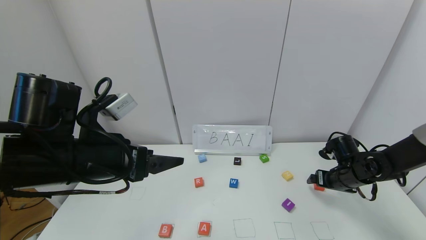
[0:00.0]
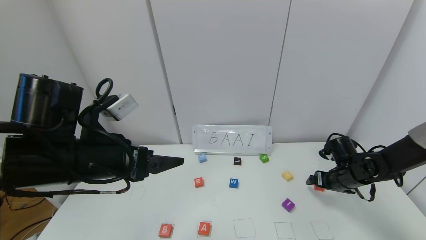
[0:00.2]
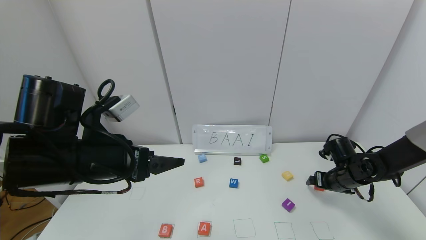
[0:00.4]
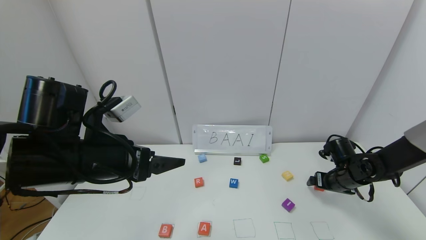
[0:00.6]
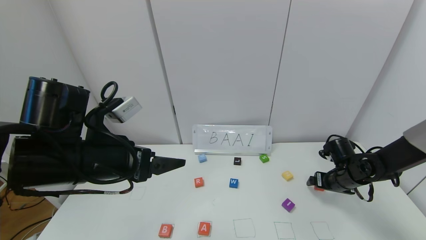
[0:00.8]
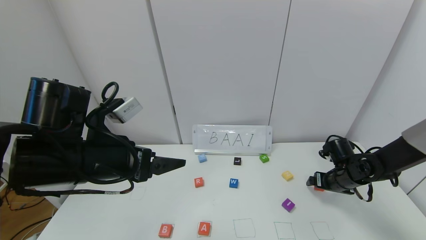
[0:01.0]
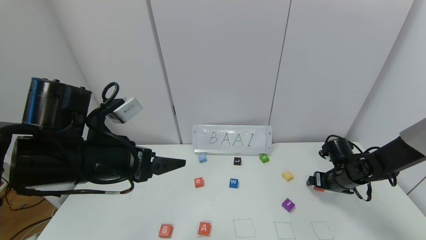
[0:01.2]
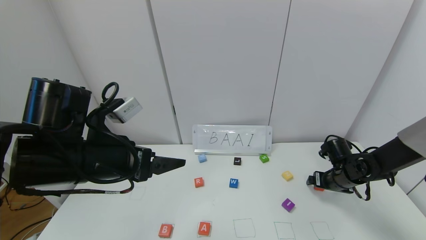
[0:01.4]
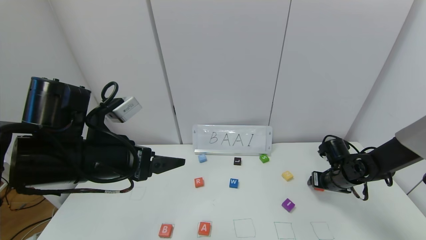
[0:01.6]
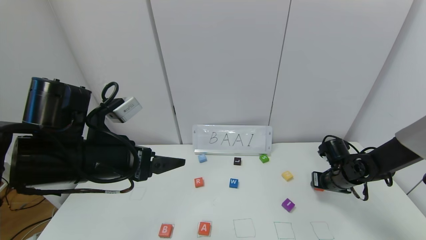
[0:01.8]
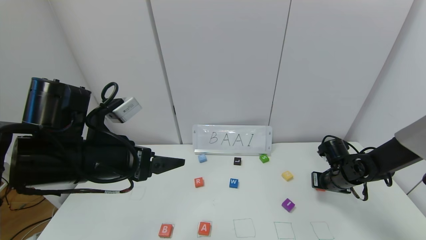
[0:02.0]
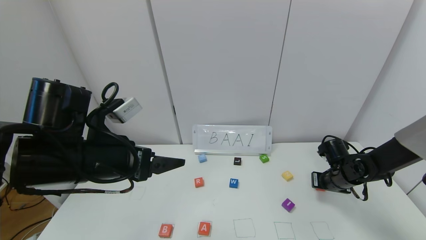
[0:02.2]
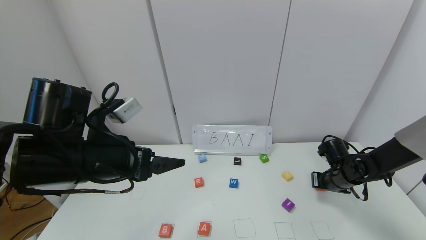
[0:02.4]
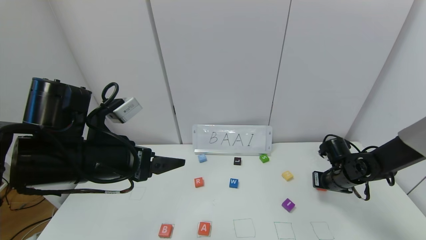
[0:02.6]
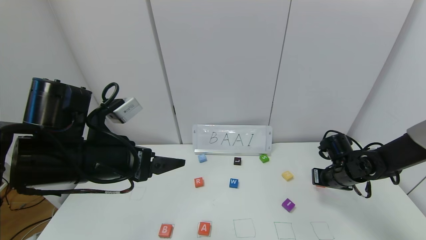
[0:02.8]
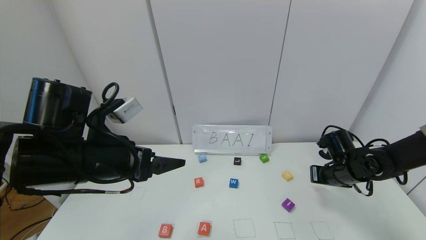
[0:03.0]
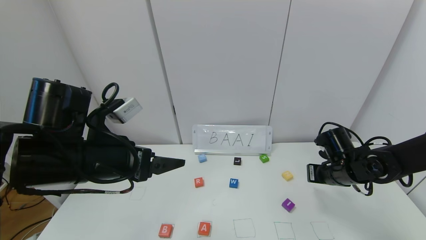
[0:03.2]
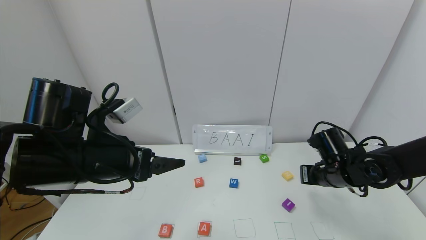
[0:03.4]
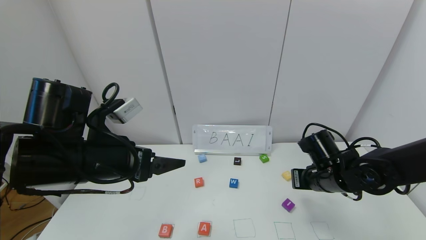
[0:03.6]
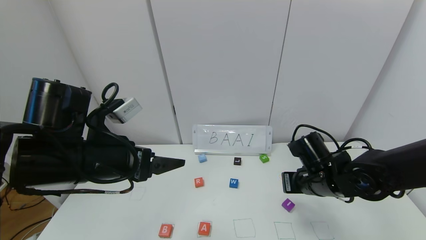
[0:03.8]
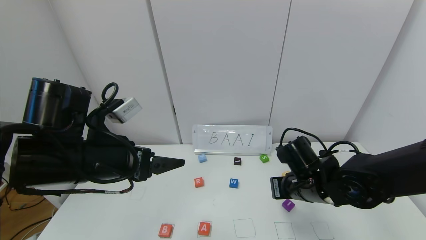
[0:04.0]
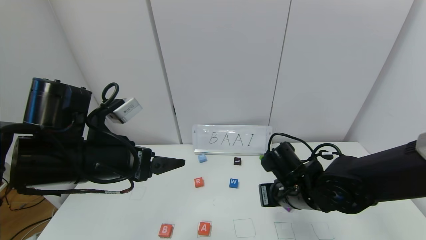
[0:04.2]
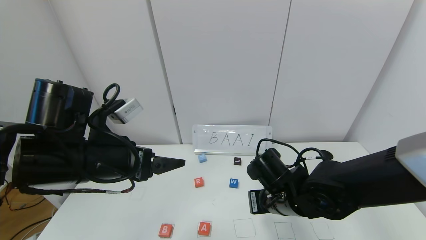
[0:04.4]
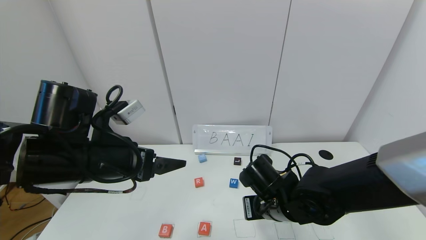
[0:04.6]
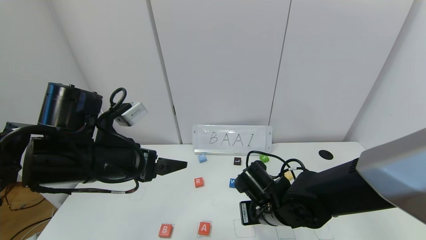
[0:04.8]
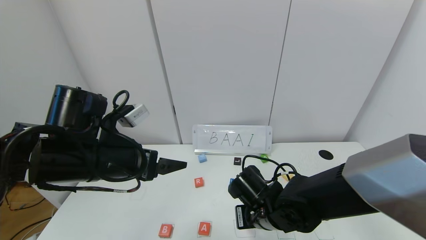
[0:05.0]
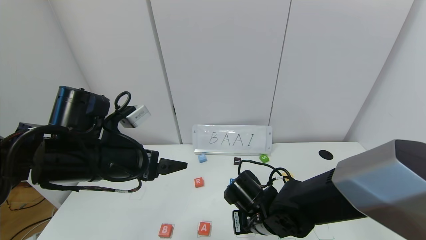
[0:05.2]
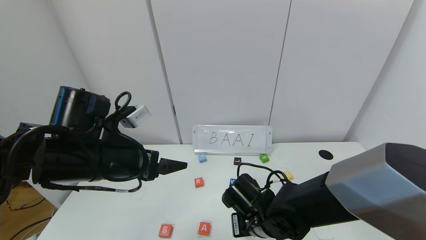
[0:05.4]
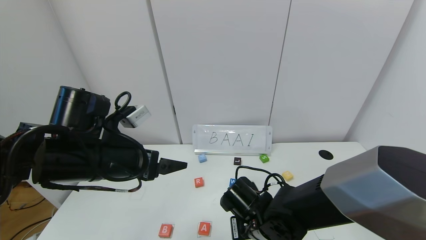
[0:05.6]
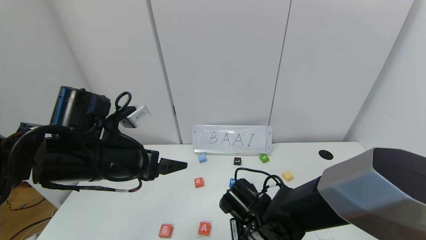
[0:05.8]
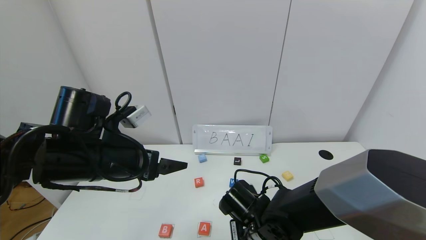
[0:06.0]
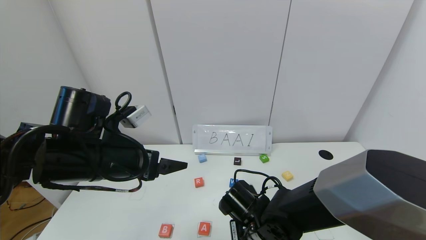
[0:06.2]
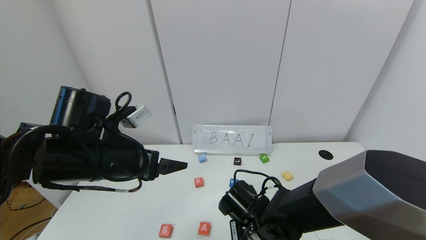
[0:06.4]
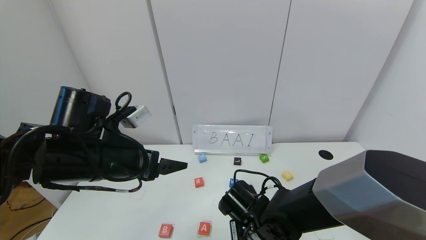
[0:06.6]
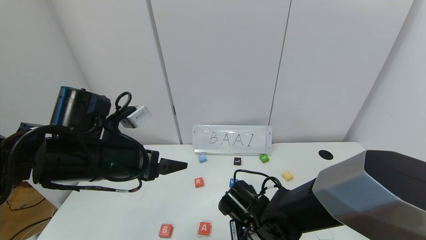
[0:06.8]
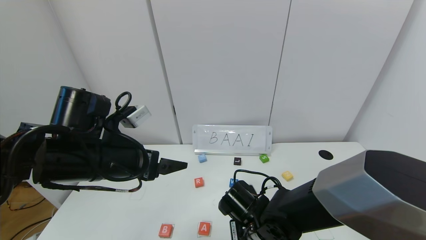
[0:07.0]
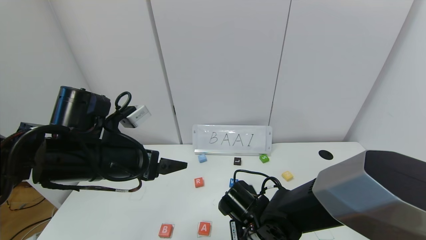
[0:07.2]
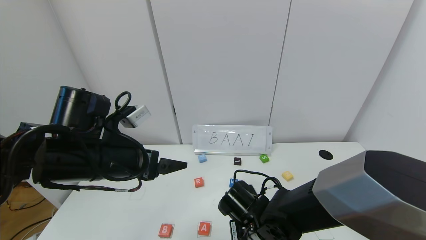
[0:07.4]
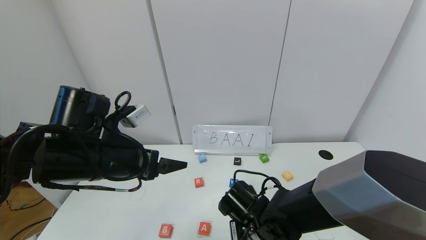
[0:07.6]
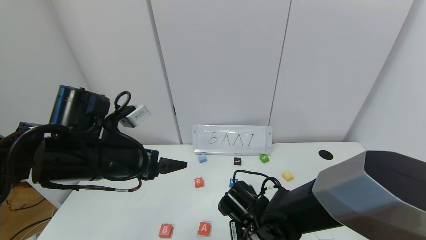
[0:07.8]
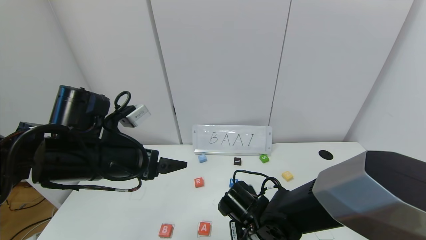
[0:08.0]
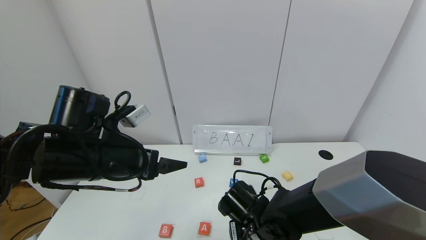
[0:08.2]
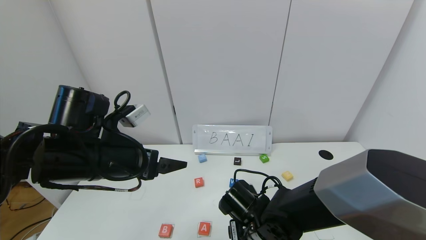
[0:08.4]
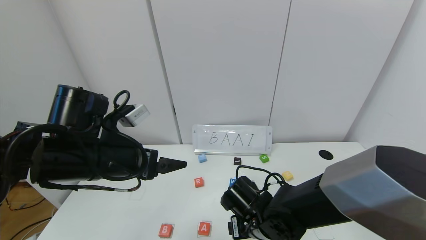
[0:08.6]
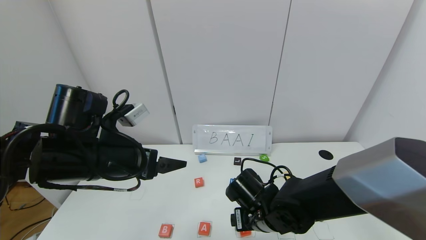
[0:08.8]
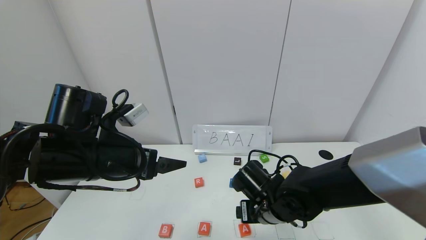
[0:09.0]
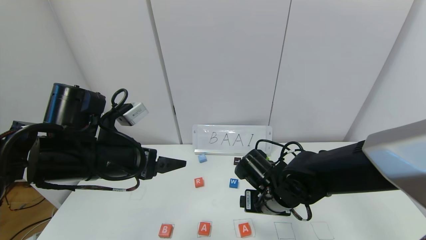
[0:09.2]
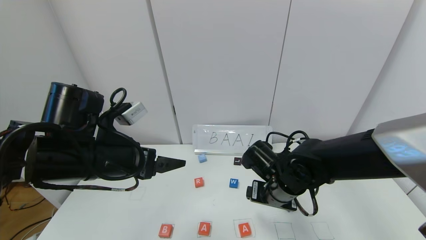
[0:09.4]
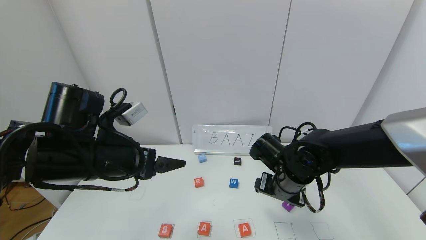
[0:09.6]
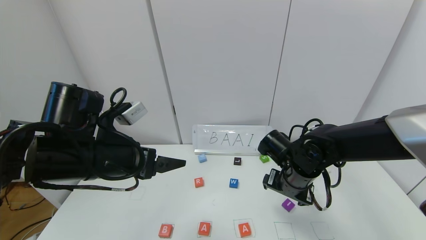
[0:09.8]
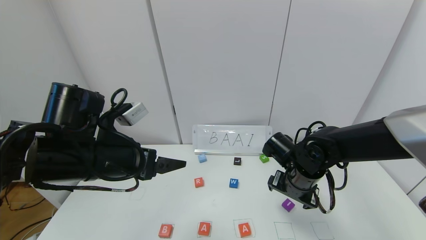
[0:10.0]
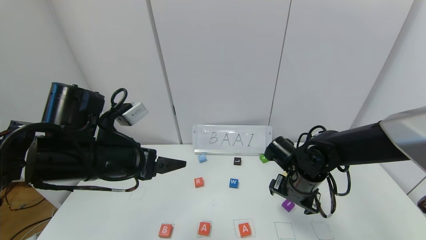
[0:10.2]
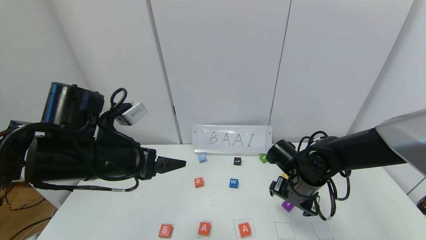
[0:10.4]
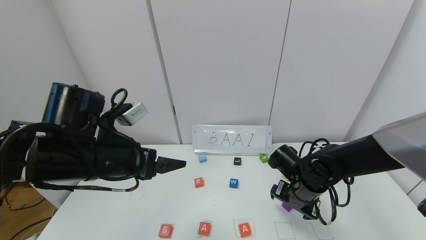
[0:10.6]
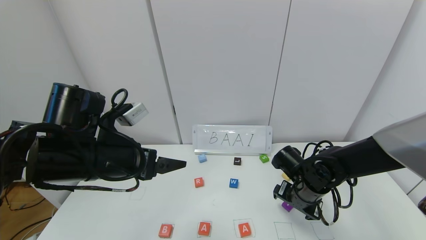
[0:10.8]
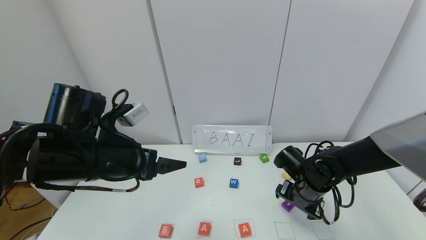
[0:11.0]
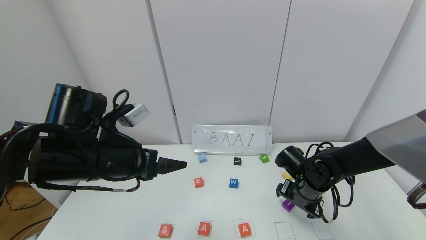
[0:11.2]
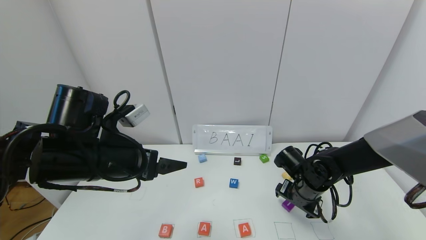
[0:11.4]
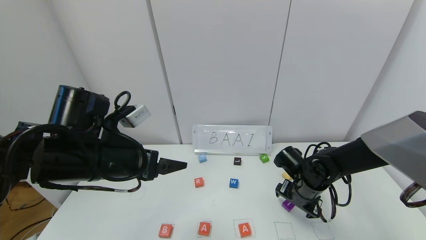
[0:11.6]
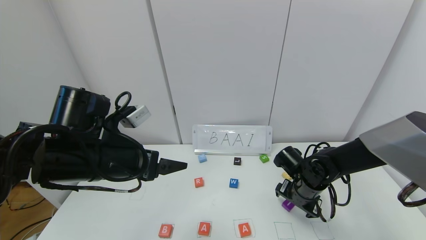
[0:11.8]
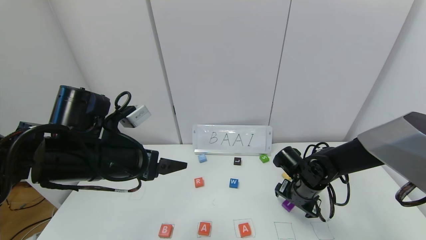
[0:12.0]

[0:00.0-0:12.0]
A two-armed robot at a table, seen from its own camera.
Task of the whole recording: use the gripper to find blocks with the letters b, a, a, and i on the table and arrange them into BAAI, then find r and N and turn the arranged baai into brian.
Step, 0:00.0 to 0:08.2: Place the second block A in the third location.
0:00.0 to 0:01.6: The right gripper closes.
0:01.6 to 0:03.0: The right gripper shifts by roughly 5 cm, and closes up.
0:03.0 to 0:04.4: The right gripper shifts about 20 cm to the left and backward.
0:04.4 to 0:06.0: The right gripper moves downward, roughly 5 cm.
0:06.0 to 0:07.6: Both grippers stay put.
0:07.6 to 0:09.0: The right gripper ends up some 5 cm from where it was, and opens up.
0:09.0 to 0:10.4: The right gripper shifts some 10 cm to the right.
0:10.4 to 0:12.0: The right gripper changes place by approximately 5 cm.

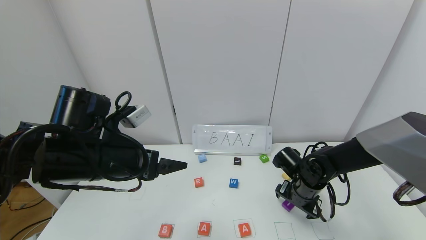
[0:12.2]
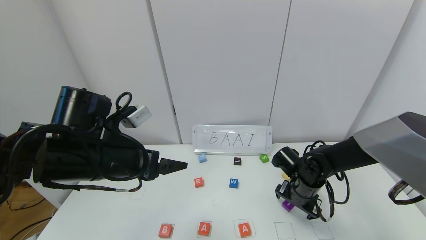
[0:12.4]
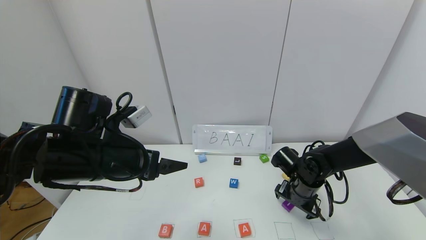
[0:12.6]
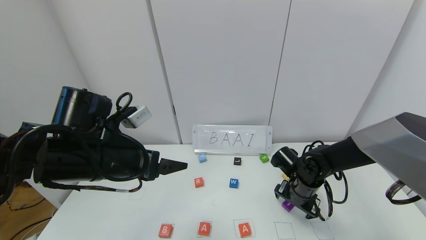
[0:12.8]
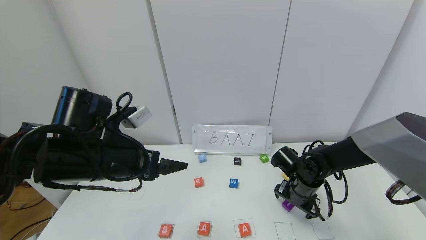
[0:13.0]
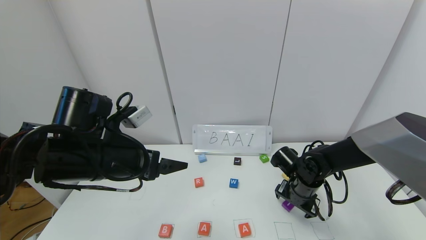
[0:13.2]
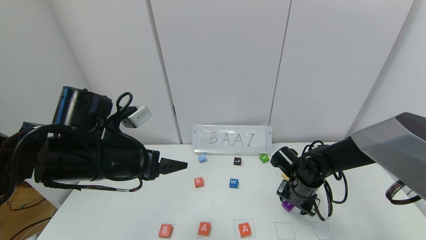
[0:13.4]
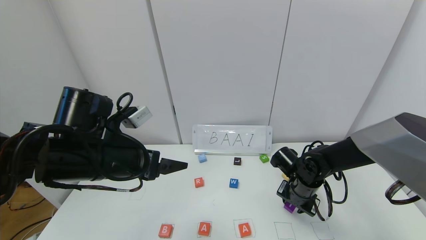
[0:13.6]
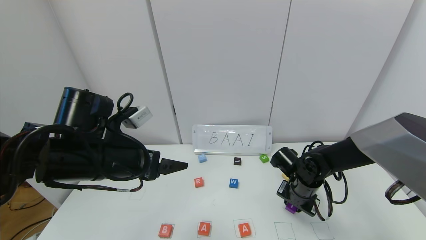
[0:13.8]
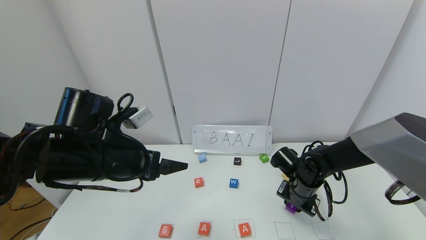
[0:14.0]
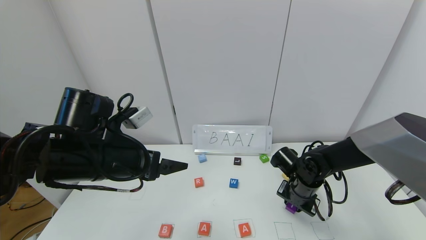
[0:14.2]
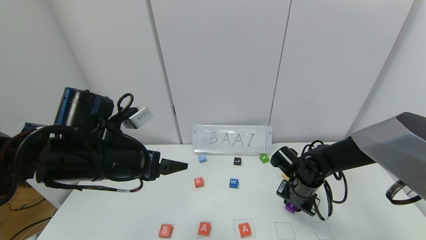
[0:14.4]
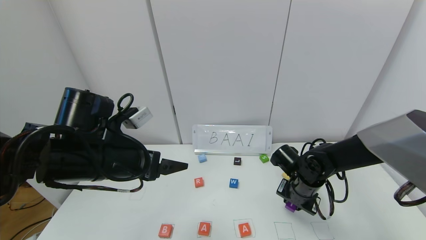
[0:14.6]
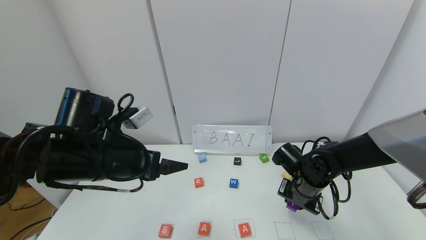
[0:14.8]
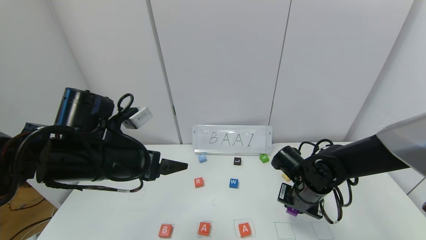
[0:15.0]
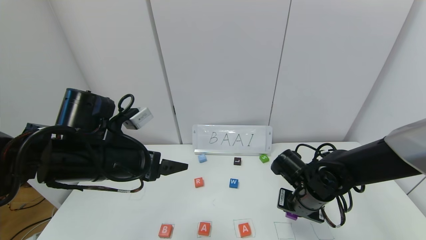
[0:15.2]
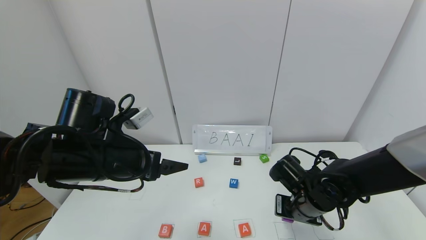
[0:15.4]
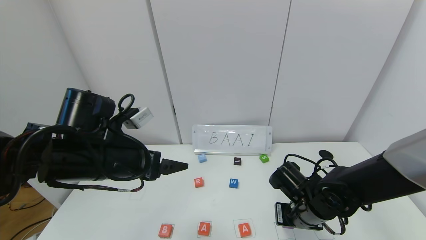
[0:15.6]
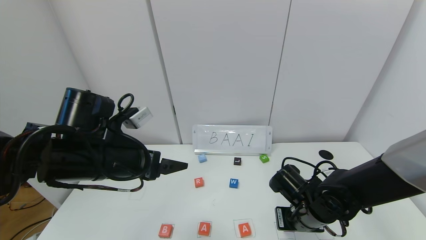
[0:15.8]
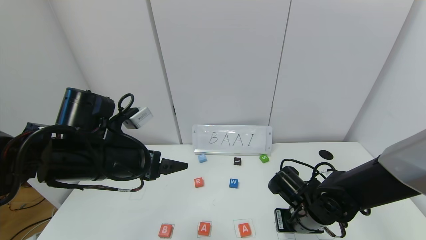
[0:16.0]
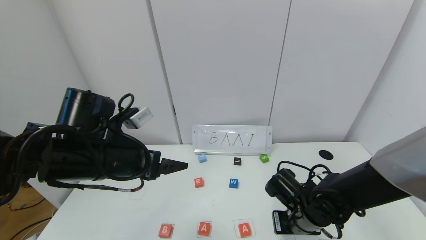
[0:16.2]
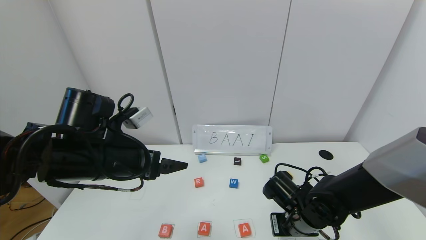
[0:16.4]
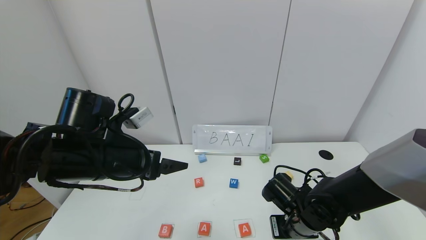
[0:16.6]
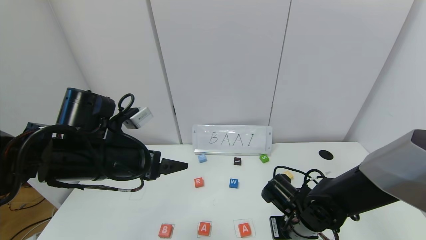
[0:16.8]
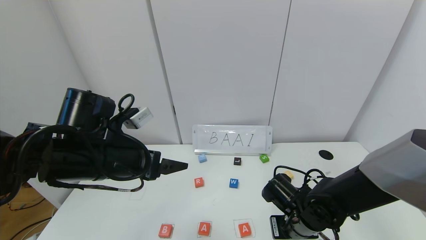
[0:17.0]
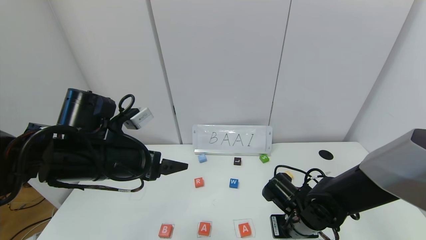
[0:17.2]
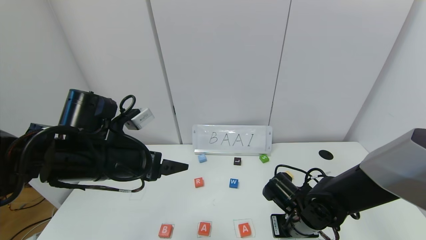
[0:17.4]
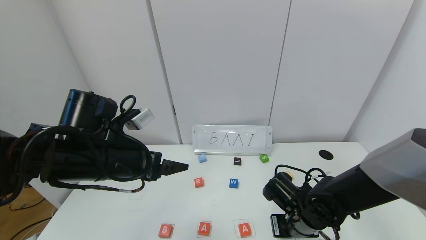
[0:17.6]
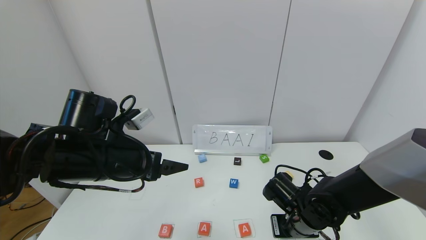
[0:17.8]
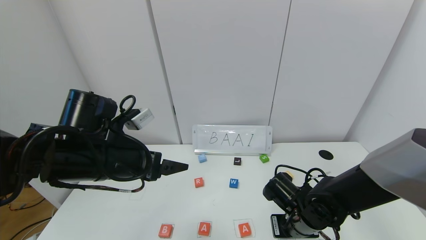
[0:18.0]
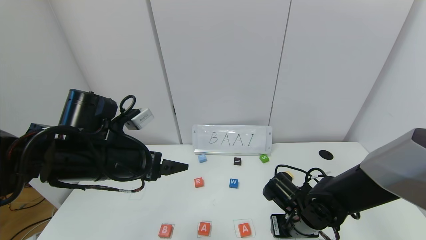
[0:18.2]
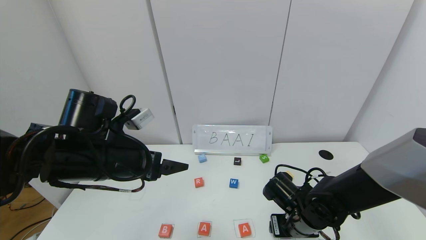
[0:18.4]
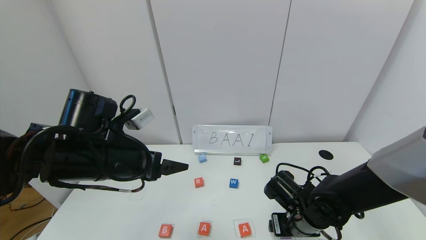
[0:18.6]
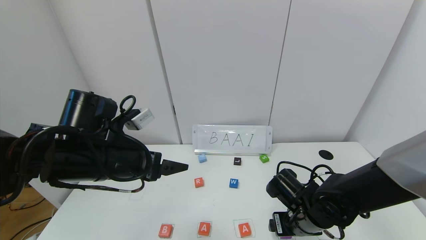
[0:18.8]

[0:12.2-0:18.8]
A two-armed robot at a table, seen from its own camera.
Task of the whole recording: use the gripper to find blocks with the letters b, a, a, and i on the table and arrange them into BAAI, then find r and N and turn the arranged baai into brian.
Step, 0:12.2 to 0:18.6: Place the block I in the fourth location.
0:12.2 to 0:13.8: The right gripper closes.
0:13.8 to 0:15.4: The right gripper shifts roughly 5 cm backward.
0:15.4 to 0:17.2: The grippers move only a little.
0:17.2 to 0:18.8: The right gripper opens its fingers.
